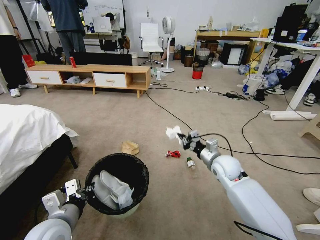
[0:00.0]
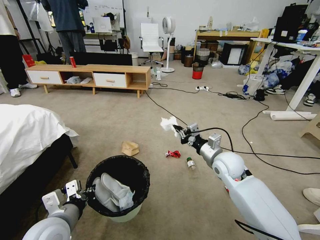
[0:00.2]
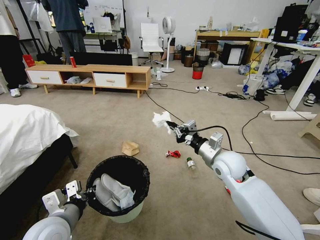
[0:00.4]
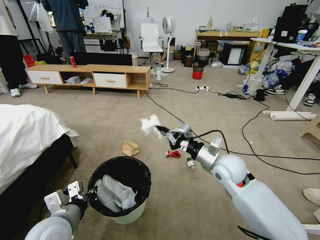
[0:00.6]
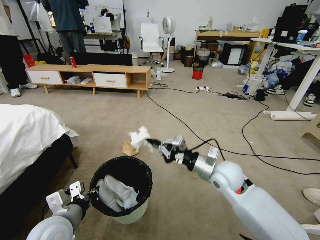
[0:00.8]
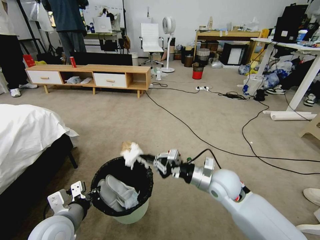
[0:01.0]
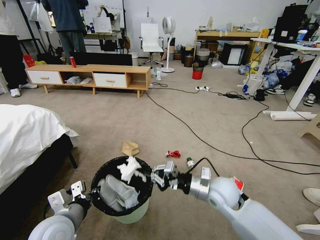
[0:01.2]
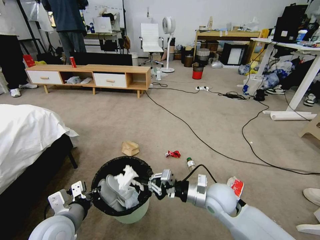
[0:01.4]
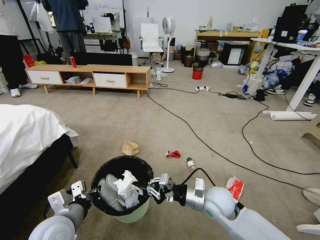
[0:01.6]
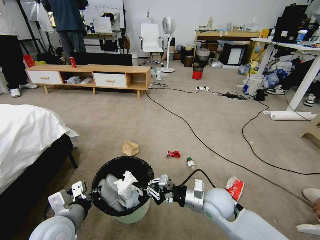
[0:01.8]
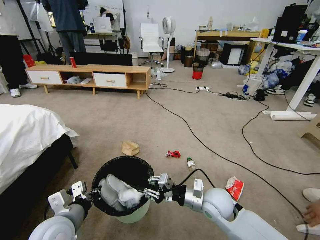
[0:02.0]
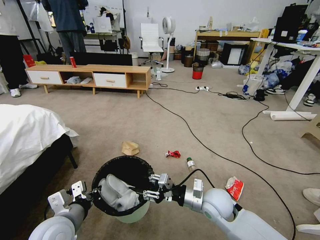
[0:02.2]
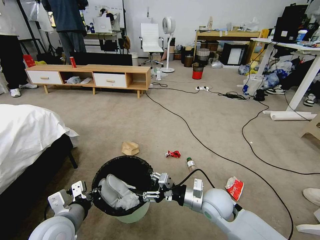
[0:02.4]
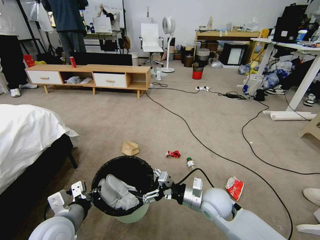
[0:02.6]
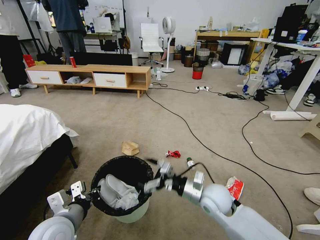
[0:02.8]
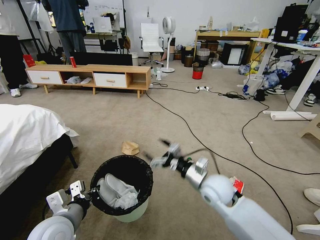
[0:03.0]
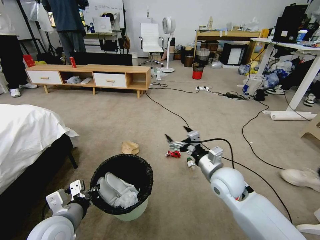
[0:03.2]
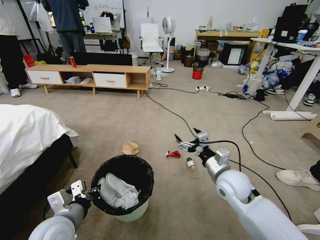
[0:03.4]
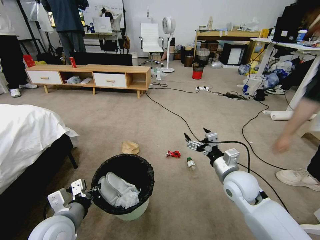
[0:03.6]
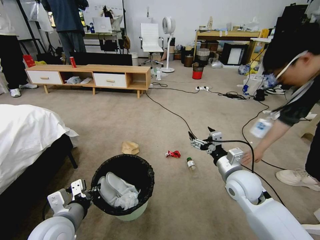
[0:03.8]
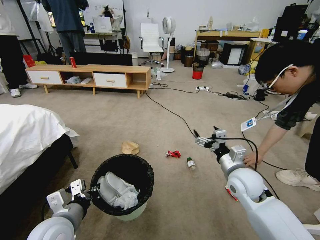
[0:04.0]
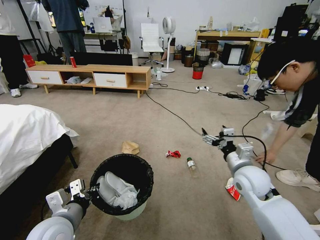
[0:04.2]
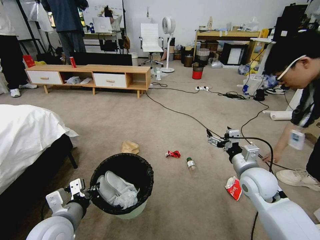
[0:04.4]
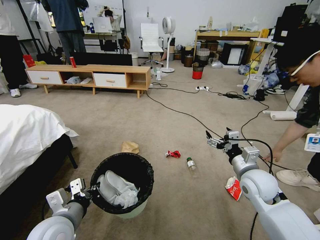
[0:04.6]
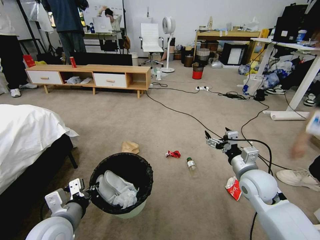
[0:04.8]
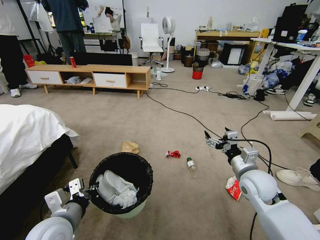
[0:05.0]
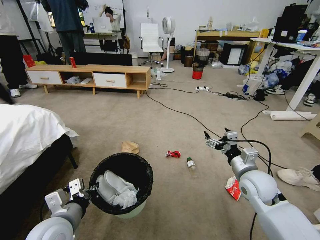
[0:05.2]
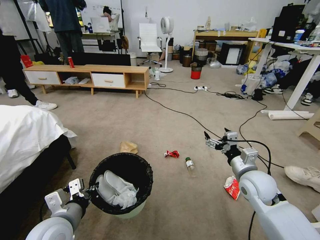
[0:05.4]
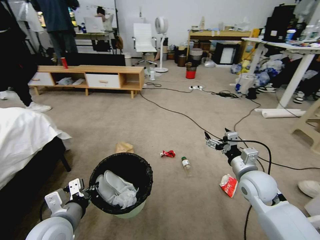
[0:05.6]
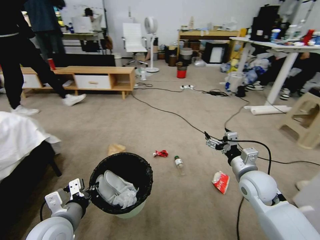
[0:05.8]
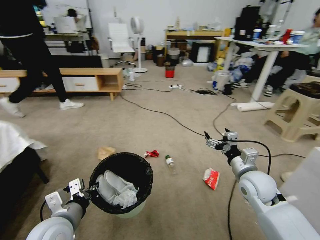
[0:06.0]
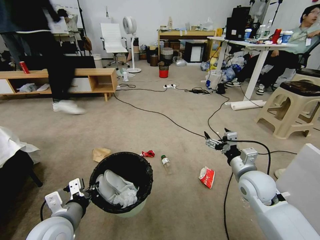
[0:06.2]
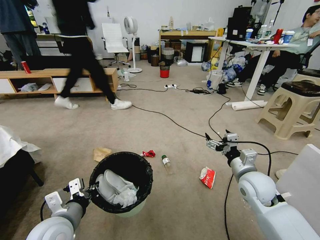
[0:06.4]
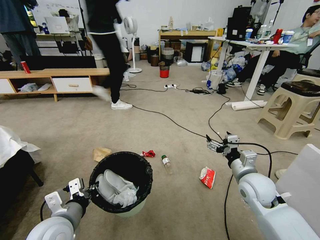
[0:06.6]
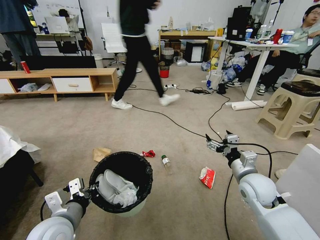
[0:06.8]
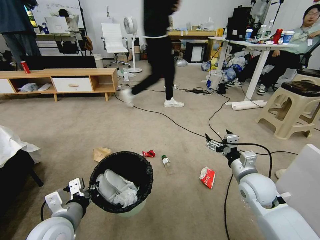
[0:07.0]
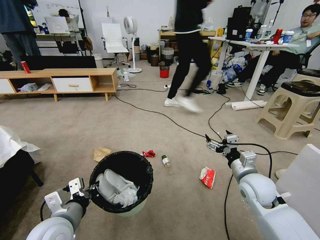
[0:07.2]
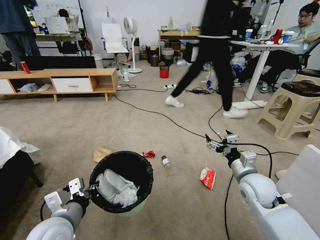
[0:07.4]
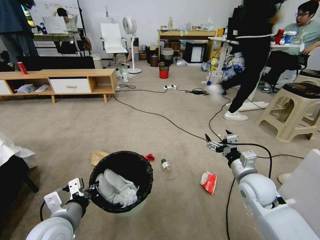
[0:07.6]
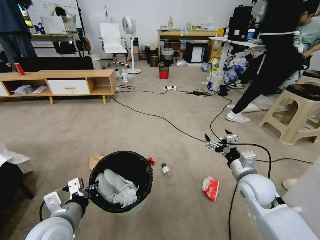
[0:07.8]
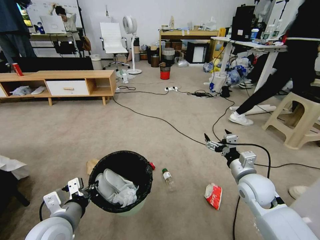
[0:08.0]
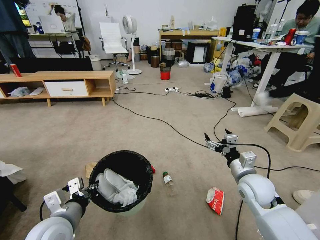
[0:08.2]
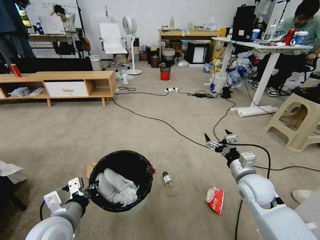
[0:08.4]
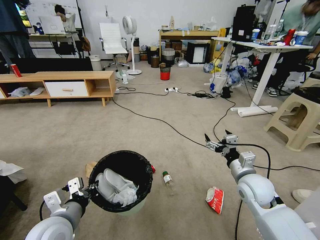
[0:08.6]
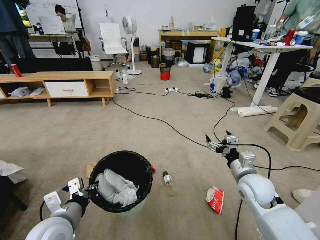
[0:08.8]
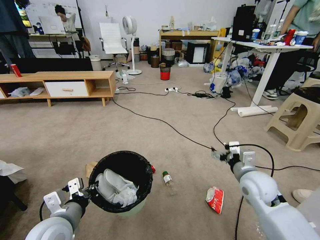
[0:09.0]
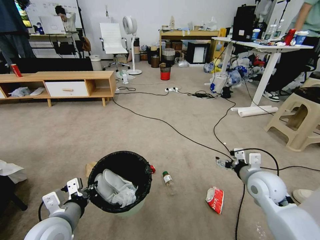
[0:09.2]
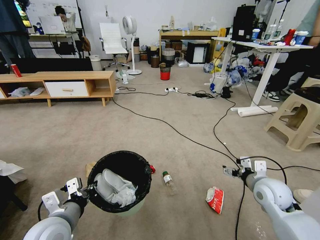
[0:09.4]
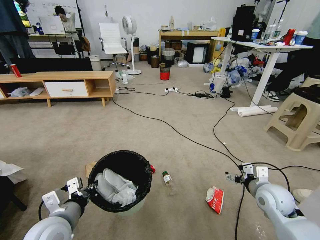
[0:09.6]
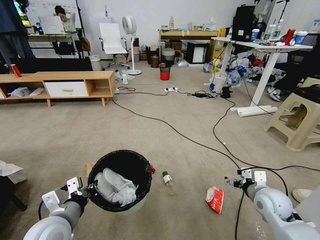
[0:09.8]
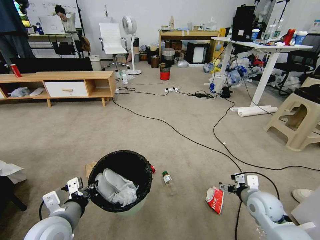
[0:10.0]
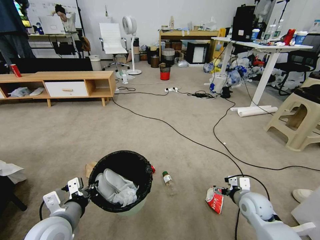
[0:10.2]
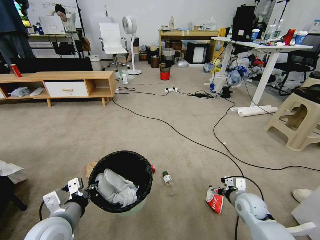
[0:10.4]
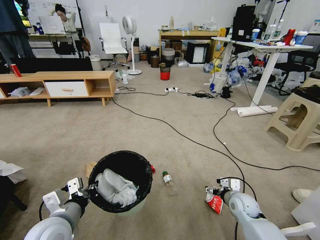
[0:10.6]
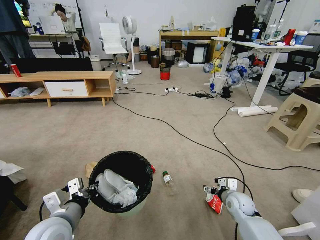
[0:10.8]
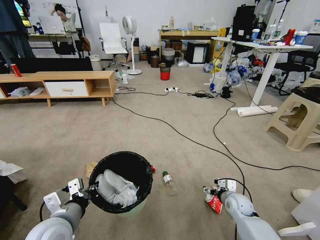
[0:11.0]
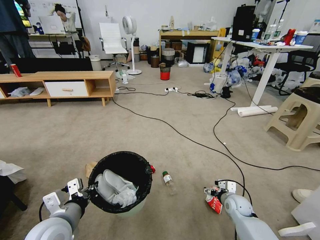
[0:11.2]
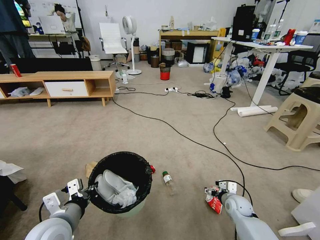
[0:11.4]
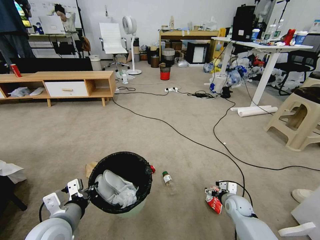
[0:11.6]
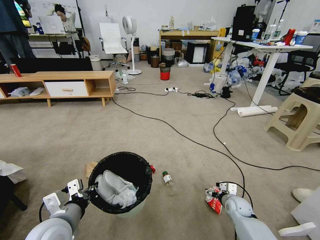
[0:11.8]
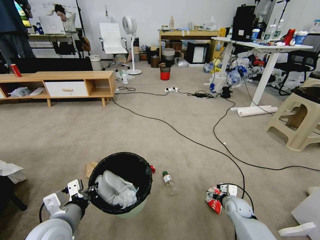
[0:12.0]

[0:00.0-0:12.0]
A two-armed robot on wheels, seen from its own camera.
Task of the whole recording: Pick up the trash bin and place the garbage on the floor into it.
0:00.0 to 0:01.6: The right gripper is displaced backward and to the left by approximately 15 cm.
0:01.6 to 0:03.0: The right gripper opens up.
0:03.0 to 0:04.4: The right gripper goes some 10 cm to the right.
0:09.0 to 0:10.4: The right gripper heads downward, covering approximately 15 cm.
0:10.4 to 0:12.0: The right gripper moves downward, approximately 10 cm.

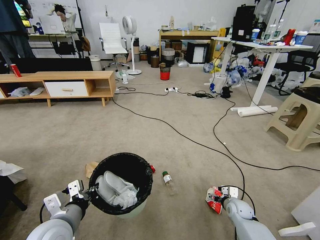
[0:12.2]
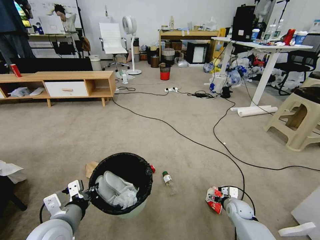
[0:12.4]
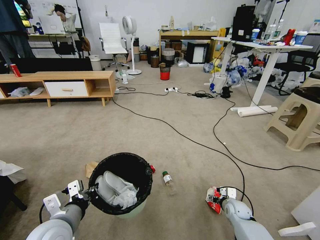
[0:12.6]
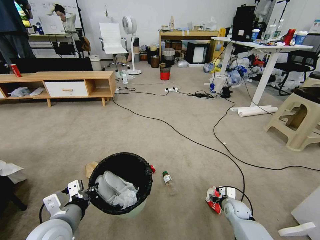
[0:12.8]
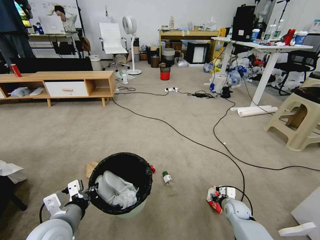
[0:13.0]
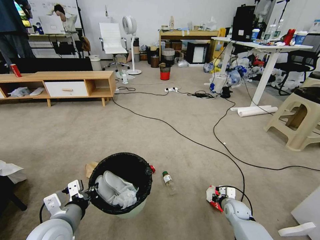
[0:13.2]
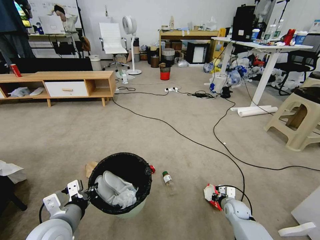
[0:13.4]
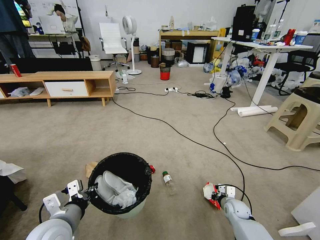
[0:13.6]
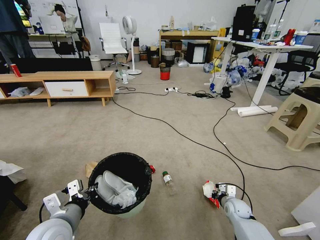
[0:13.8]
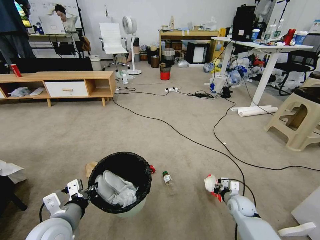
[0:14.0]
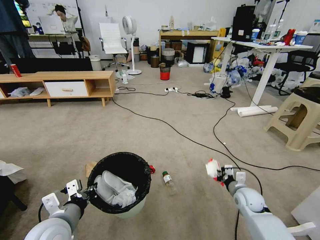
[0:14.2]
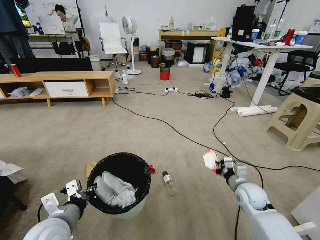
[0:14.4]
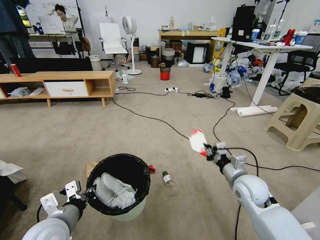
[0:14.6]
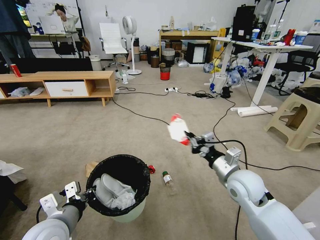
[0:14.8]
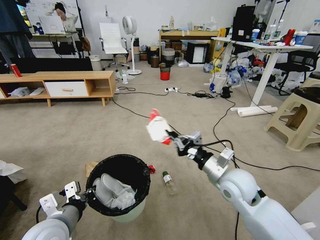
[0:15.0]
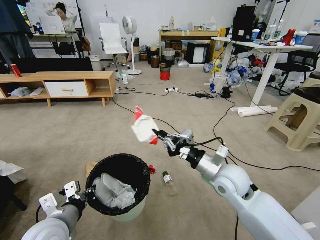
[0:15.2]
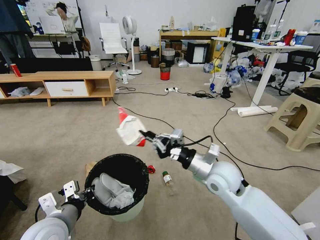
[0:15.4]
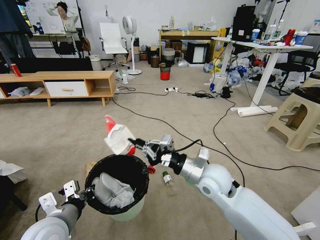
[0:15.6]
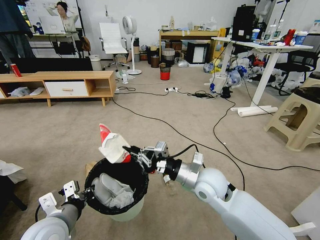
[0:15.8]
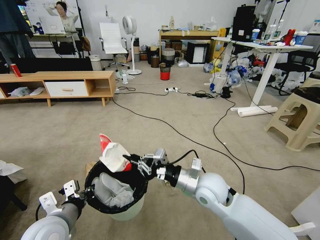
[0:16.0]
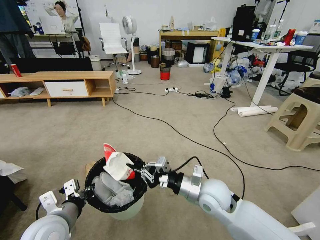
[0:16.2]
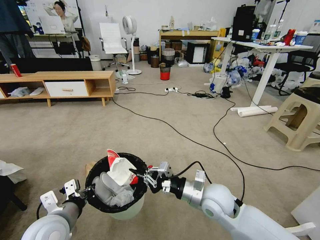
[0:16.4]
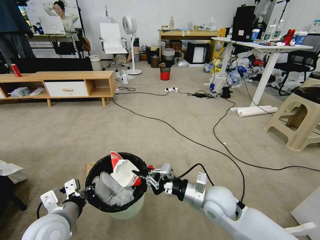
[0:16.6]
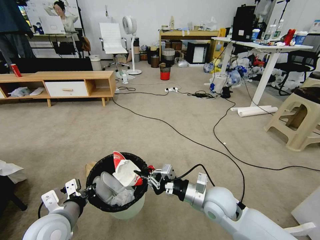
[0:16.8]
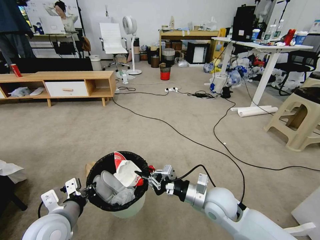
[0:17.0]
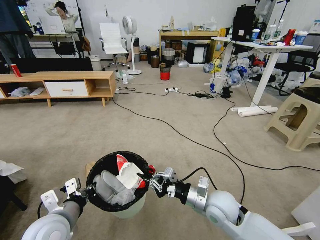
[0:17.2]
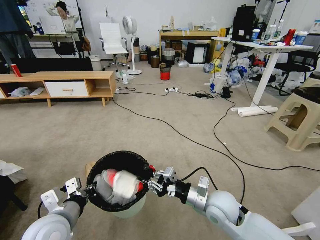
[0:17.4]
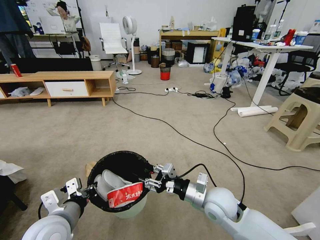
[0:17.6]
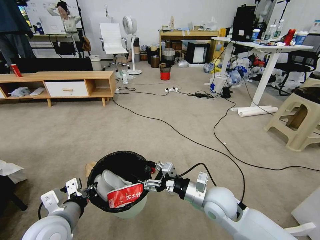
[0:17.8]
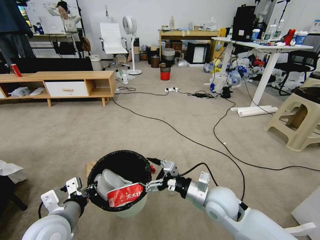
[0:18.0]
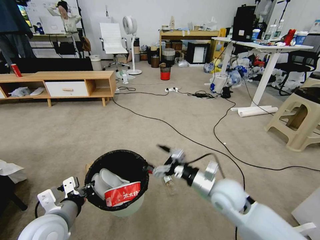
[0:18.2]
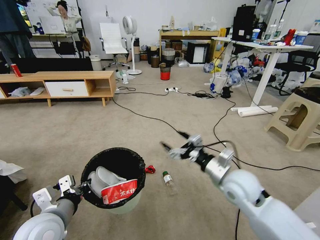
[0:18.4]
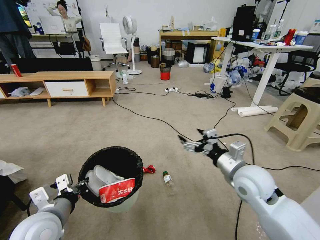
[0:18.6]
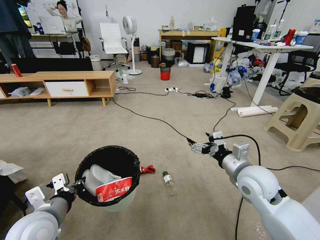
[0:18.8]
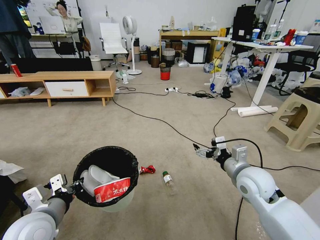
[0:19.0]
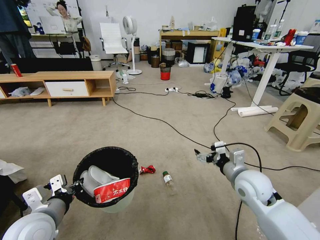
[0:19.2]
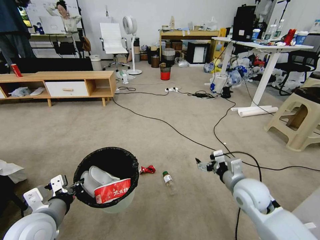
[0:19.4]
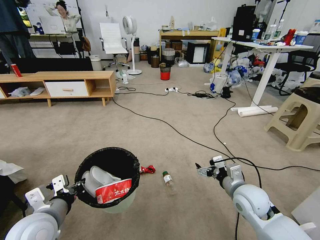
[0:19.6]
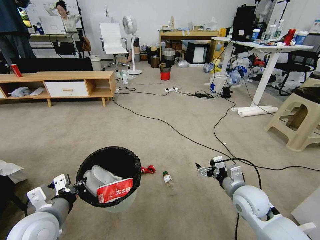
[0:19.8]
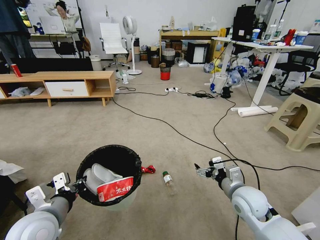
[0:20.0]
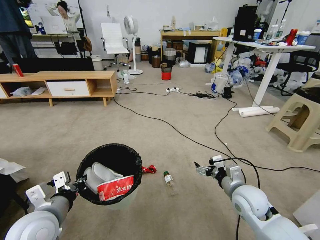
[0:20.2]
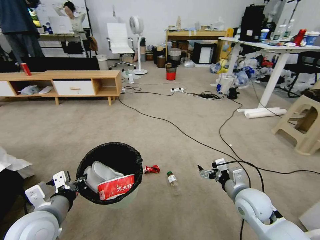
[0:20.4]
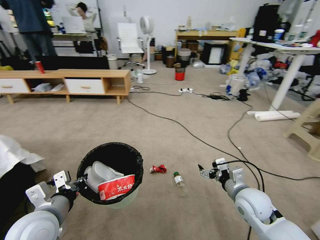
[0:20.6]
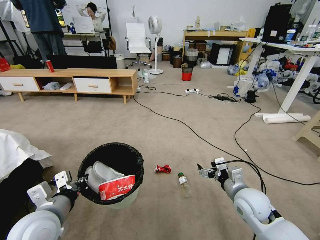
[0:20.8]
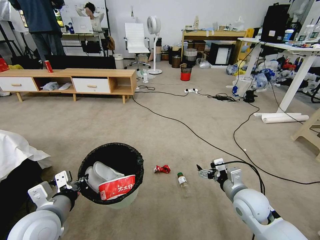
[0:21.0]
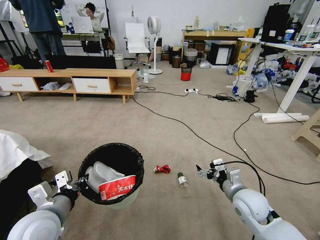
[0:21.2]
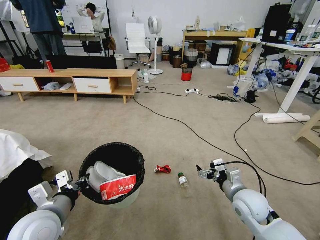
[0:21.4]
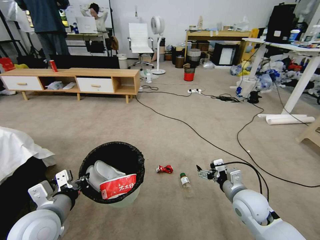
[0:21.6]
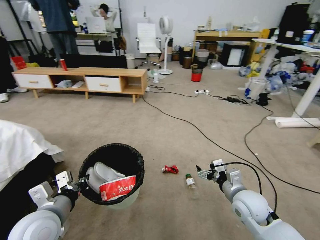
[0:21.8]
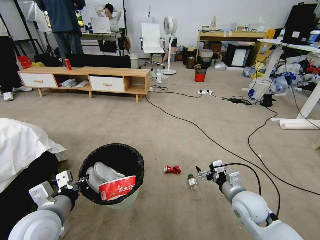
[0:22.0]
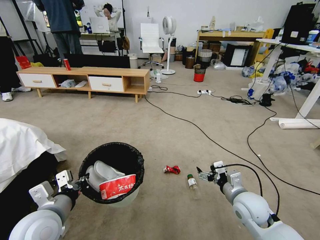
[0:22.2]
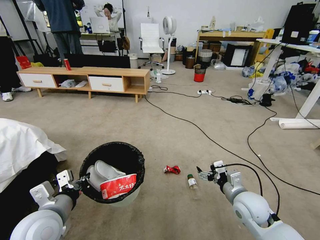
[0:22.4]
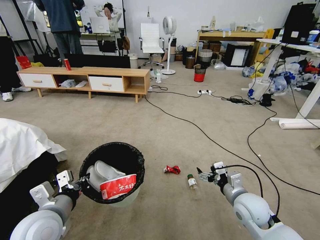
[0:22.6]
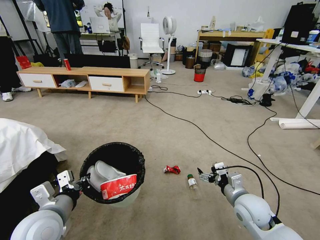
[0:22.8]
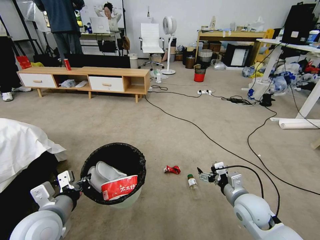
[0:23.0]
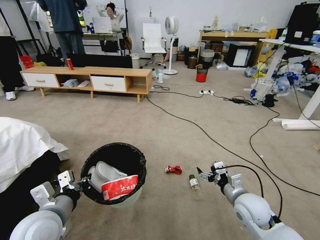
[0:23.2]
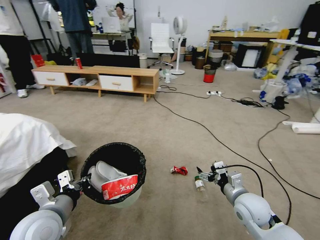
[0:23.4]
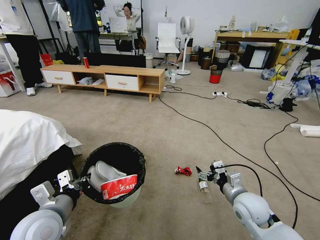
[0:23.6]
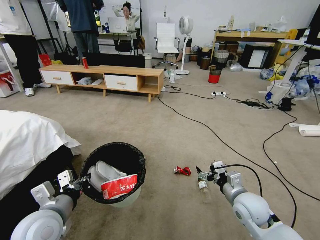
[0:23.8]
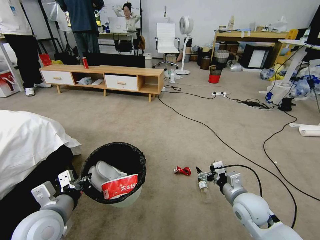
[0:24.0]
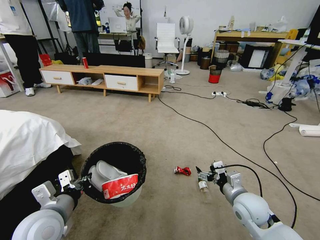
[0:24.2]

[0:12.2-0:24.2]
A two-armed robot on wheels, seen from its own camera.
Task of the whole recording: Pick up the trash bin and place the garbage on the floor into it.
0:12.2 to 0:13.8: The right gripper closes its fingers.
0:13.8 to 0:15.2: The right gripper shifts some 30 cm upward and to the left.
0:15.2 to 0:16.6: The right gripper is displaced downward by approximately 5 cm.
0:16.6 to 0:18.2: The right gripper opens.
0:18.2 to 0:19.8: The right gripper heads to the right, covering some 10 cm, and reaches approximately 5 cm upward, then returns.
